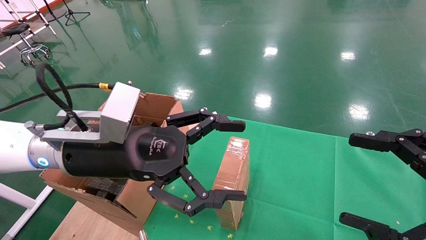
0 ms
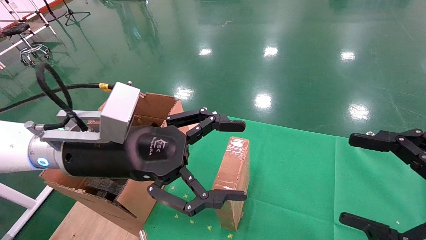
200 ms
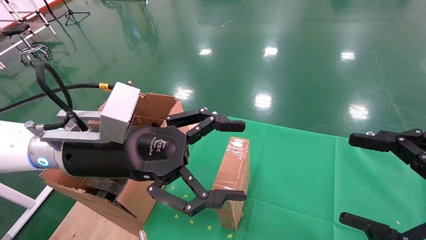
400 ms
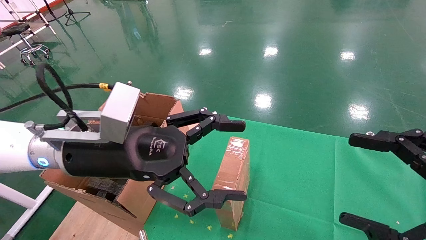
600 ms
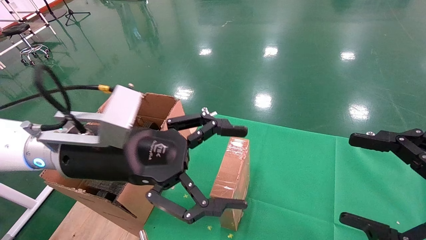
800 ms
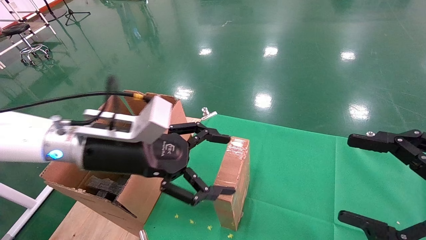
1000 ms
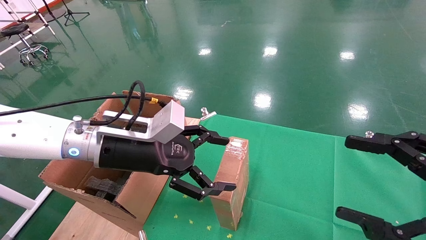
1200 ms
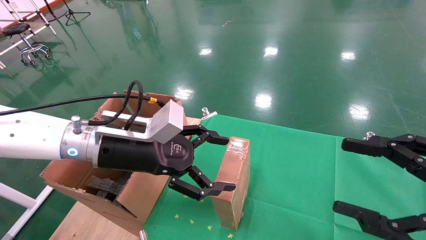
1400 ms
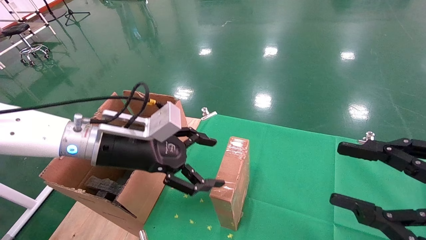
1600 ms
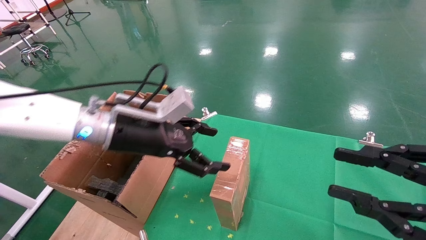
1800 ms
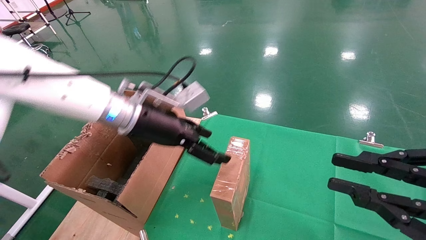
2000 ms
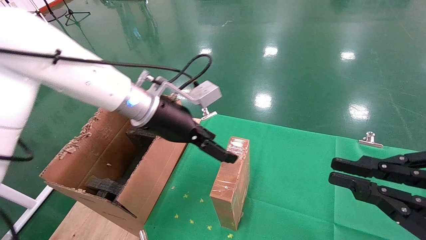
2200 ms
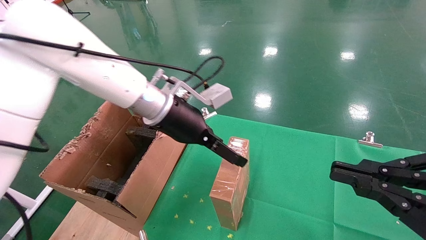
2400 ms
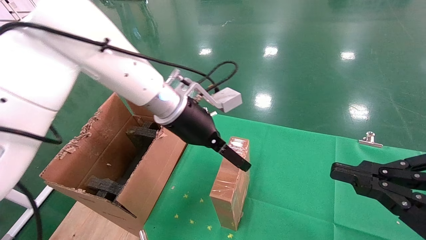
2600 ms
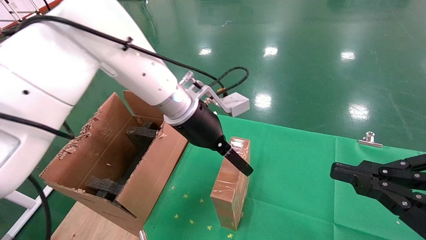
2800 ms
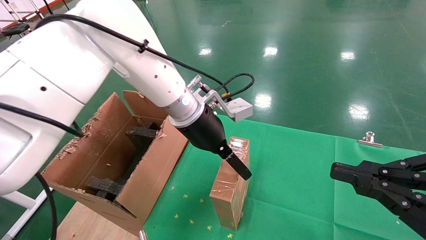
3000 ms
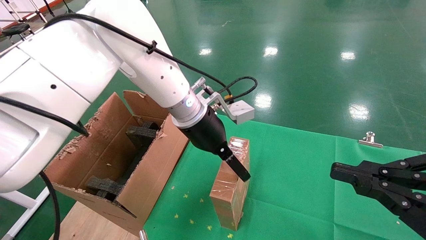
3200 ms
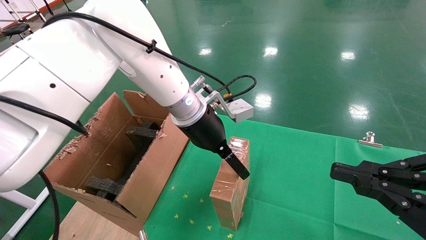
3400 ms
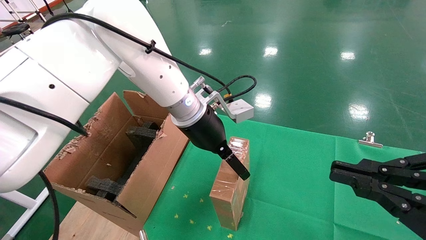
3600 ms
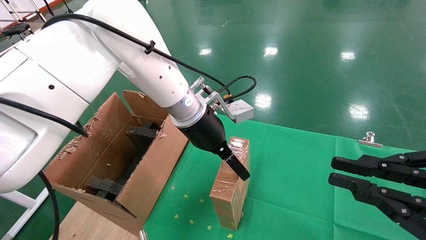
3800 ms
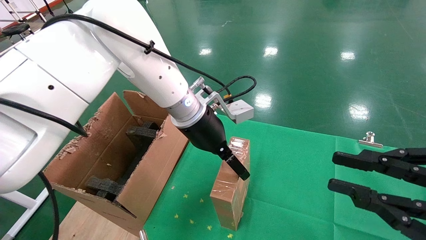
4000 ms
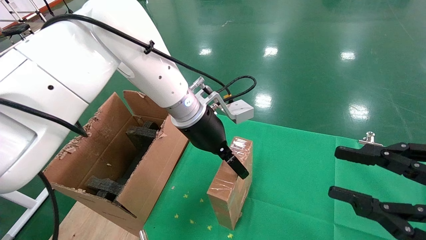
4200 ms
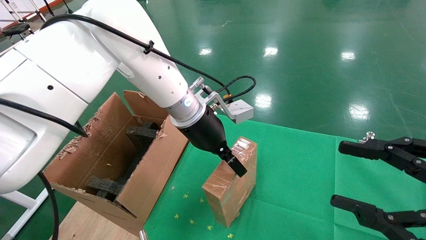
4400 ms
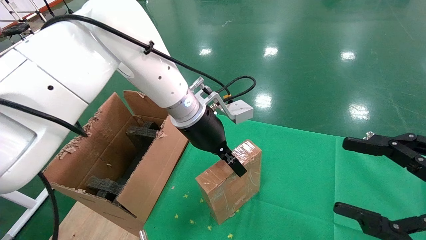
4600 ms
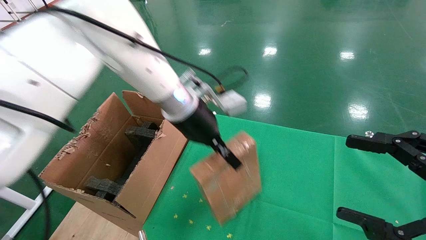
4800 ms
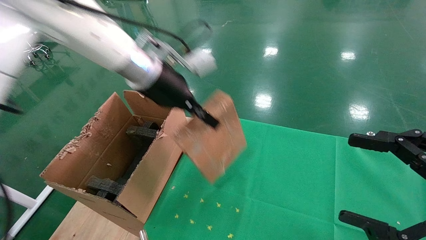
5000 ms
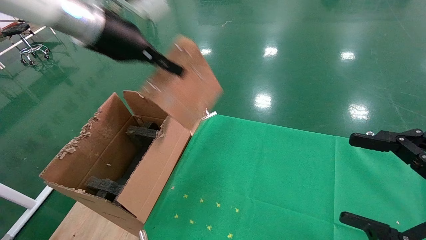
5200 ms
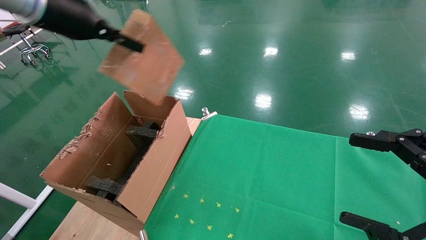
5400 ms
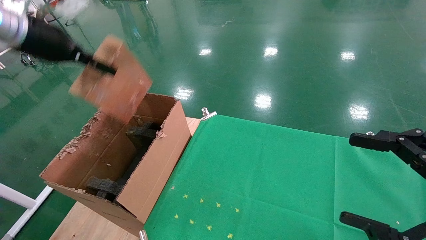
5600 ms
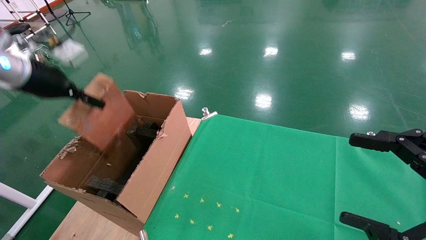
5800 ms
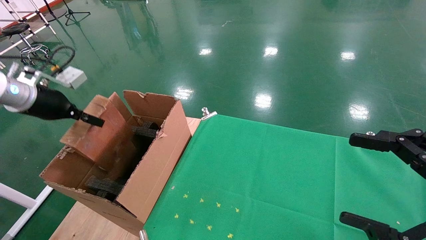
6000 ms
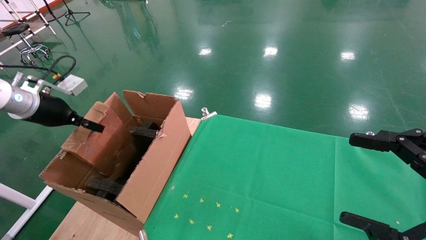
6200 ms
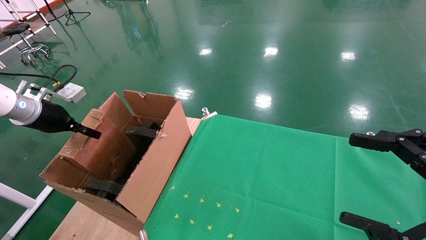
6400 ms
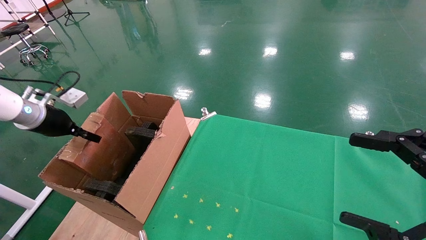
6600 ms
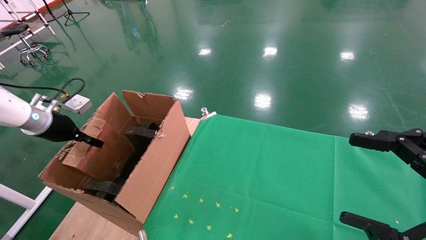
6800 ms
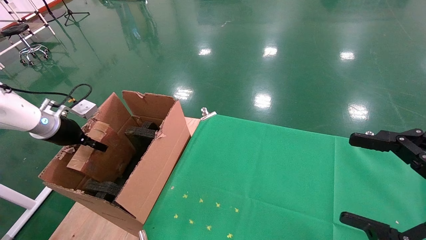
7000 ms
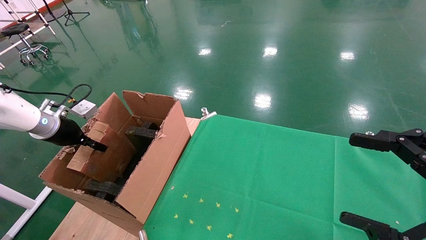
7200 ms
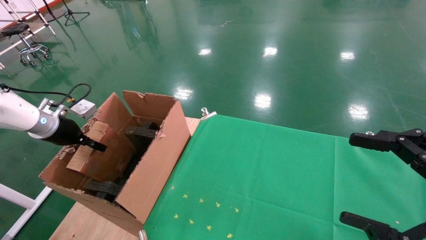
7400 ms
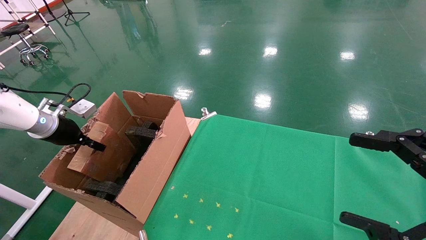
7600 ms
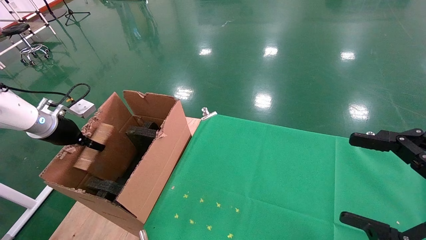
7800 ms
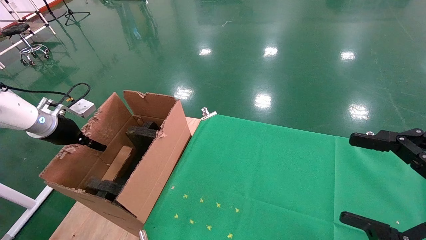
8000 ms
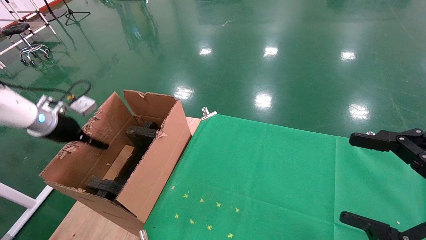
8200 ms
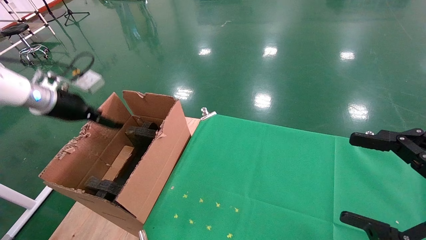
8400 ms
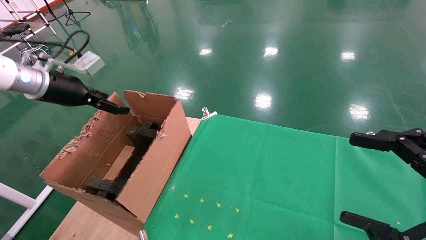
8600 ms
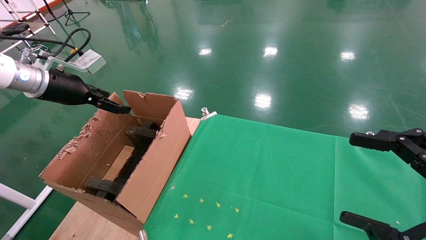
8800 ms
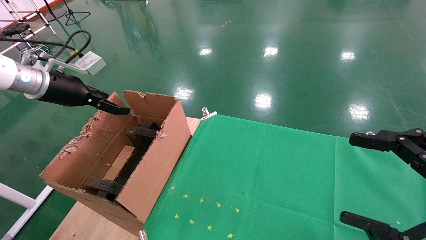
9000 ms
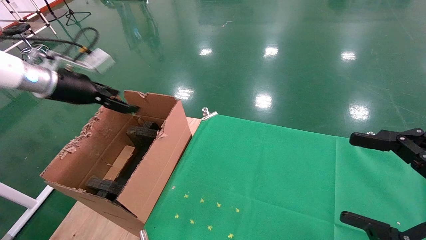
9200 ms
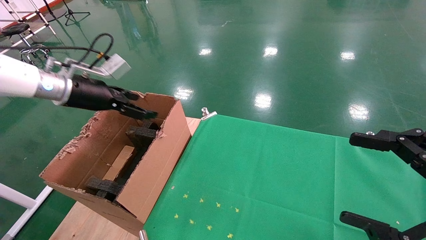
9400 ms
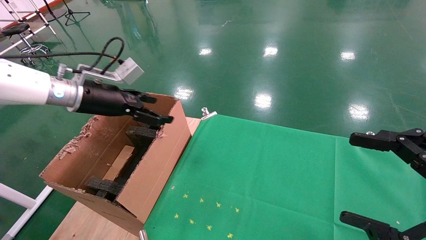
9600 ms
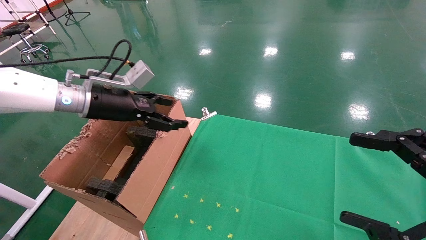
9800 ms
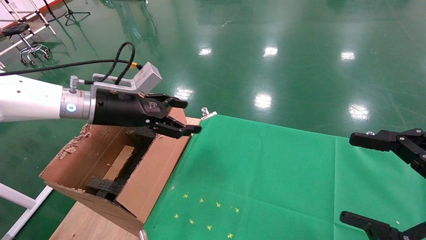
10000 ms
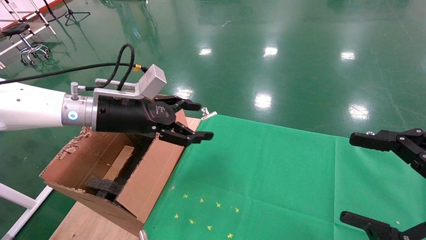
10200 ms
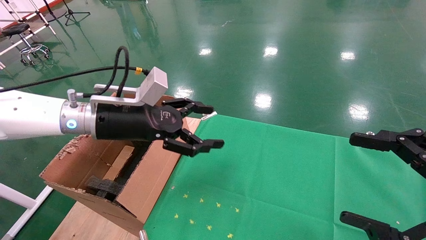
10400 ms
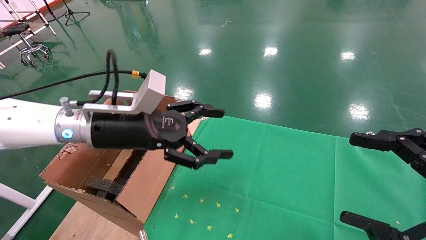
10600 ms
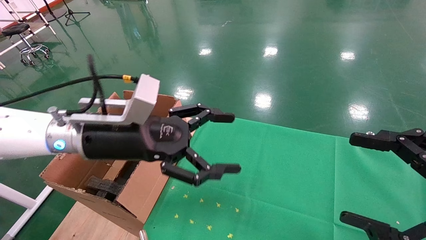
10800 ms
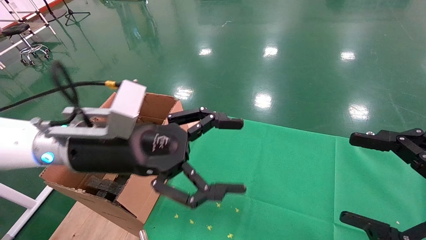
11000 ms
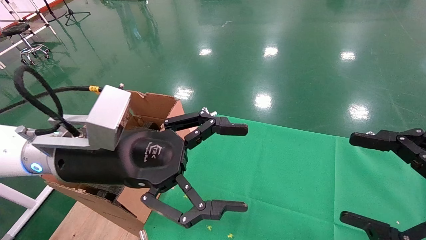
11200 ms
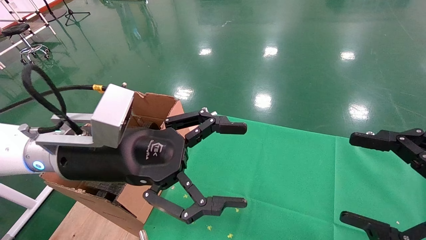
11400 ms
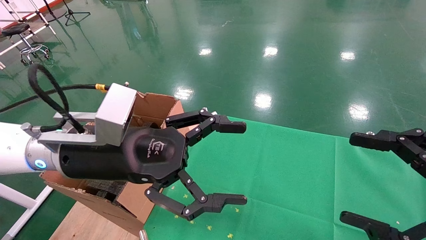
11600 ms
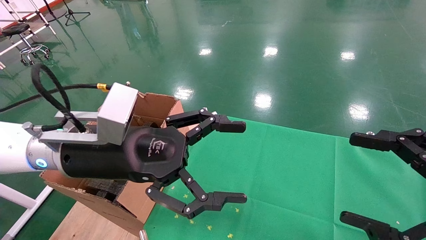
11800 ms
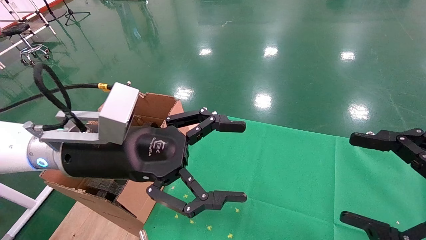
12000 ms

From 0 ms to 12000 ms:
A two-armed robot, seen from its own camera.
Task of the whole recording: using a robotic arm to pick up a cardboard box and palace it the carton.
Step, from 800 ms to 4600 ms: Pick up the mouse and the power cord paper box.
Step, from 4800 ms to 8400 ms: Place the mouse and the power cord paper box into the container.
From 0 ms to 1600 ms: The left gripper shifts approximately 5 cm forward.
From 1600 ms to 3000 ms: The left gripper is displaced to the right and forward by approximately 15 cm; the right gripper closes its fingers.
From 3000 ms to 4400 ms: The right gripper opens, while the left gripper closes up.
From 4400 ms to 6000 ms: The left gripper is displaced to the left by about 35 cm, and closes; the right gripper opens.
From 6000 ms to 7600 ms: The left gripper is displaced downward by some 10 cm.
From 7600 ms to 9000 ms: The left gripper goes roughly 15 cm upward and to the right, and opens.
From 9000 ms to 10400 ms: The left gripper heads to the right, covering about 20 cm.
From 10400 ms to 12000 ms: The left gripper travels backward by roughly 10 cm.

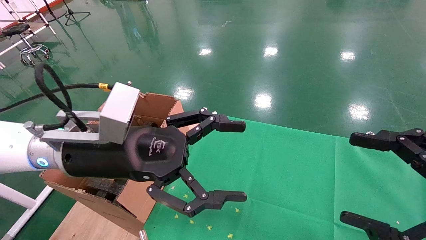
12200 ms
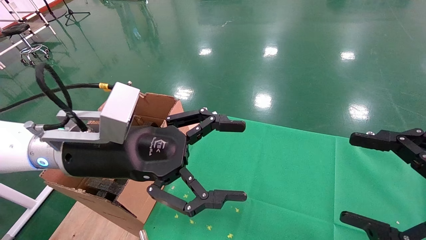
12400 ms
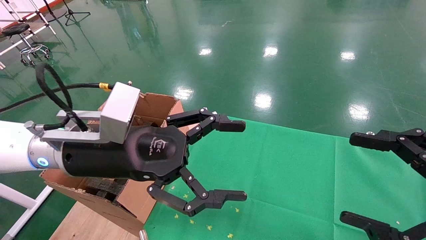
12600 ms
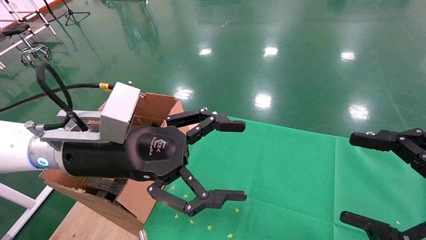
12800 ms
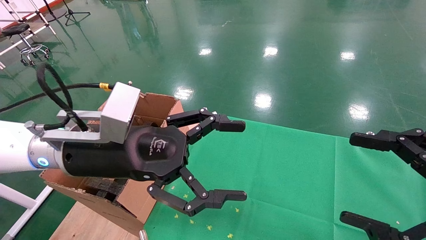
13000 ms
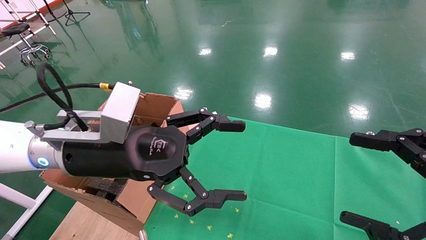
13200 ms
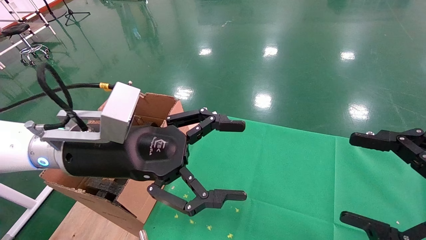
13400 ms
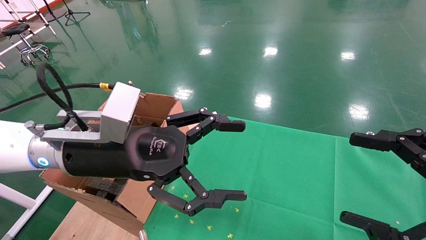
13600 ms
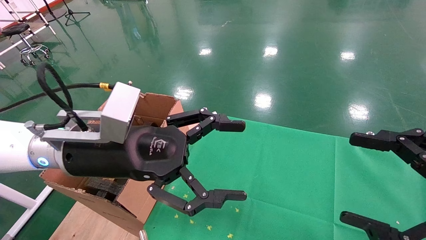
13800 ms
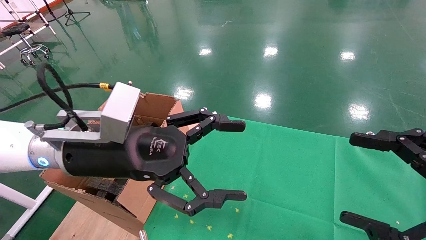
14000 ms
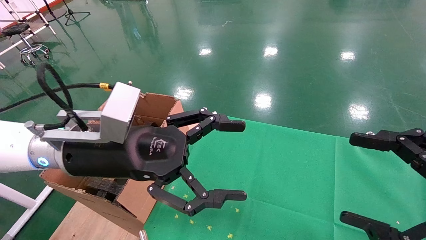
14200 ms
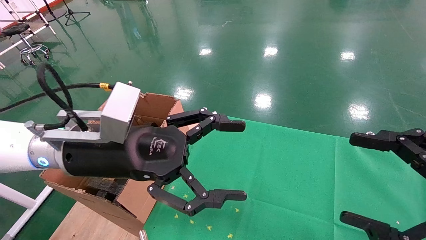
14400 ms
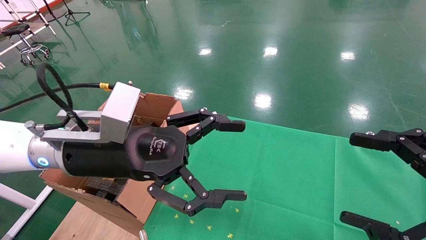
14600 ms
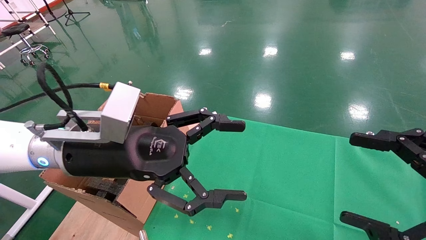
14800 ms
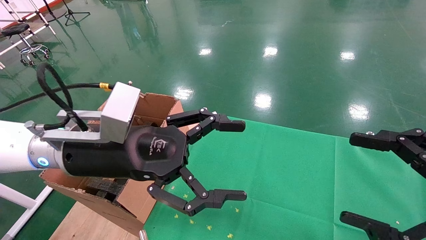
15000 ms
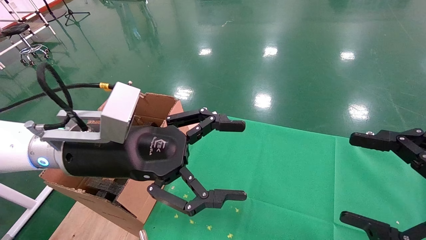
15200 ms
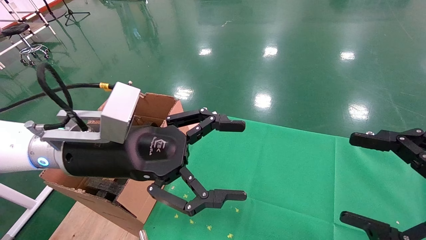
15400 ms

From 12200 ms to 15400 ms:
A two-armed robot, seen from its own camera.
Task of the whole recording: using a robotic arm to pick up a cardboard box and palace it the carton.
From 12200 ms to 15400 ms: Neither gripper changes place.

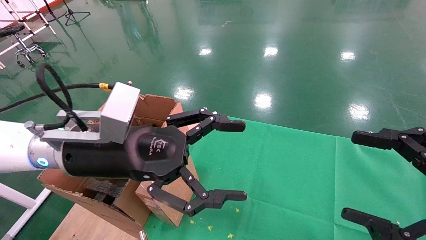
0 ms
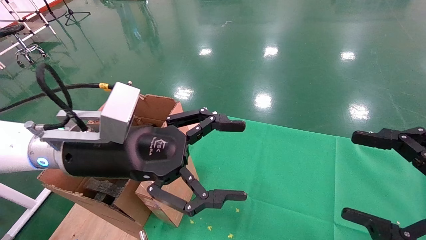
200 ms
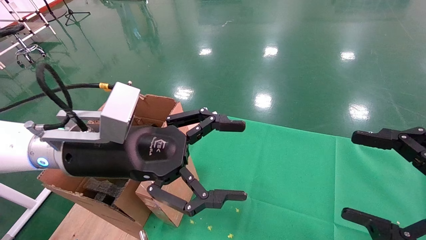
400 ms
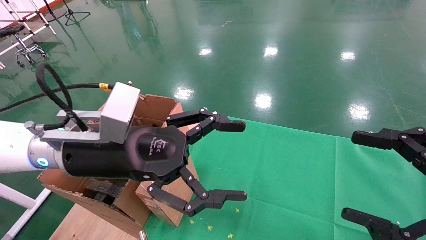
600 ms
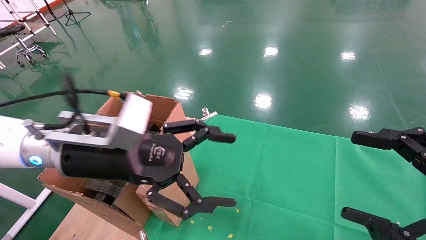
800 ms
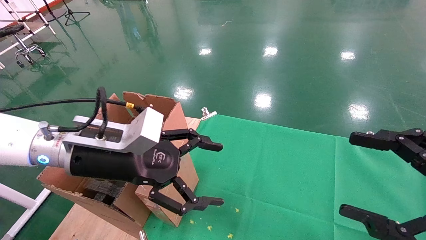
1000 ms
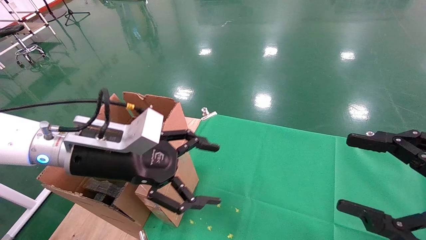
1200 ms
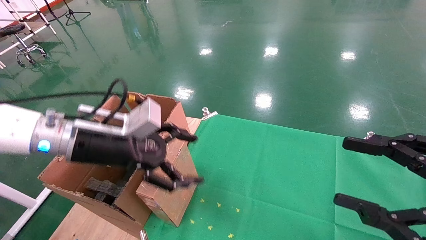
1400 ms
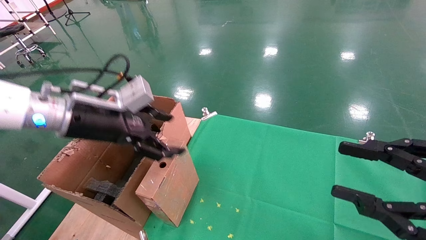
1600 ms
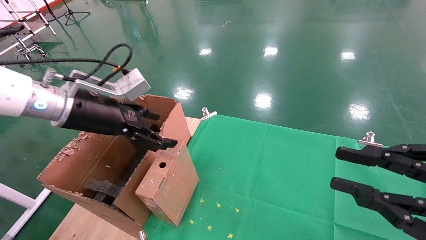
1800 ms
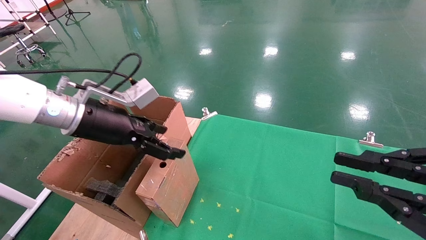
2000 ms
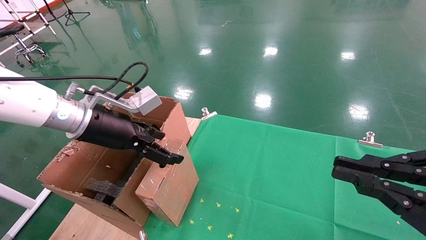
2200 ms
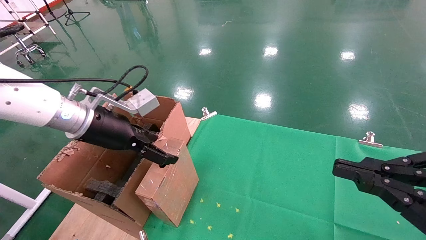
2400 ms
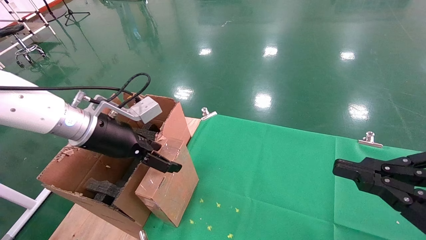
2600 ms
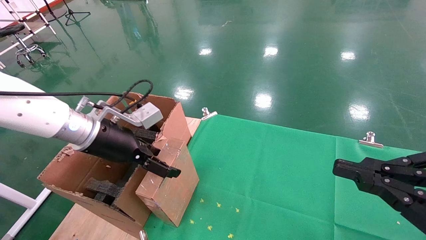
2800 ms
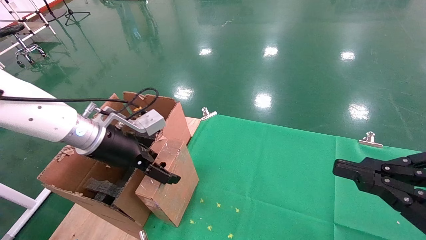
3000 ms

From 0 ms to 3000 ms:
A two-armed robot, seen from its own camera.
Task of the whole recording: using a robotic arm to pick up a cardboard box and palace it the carton.
From 0 ms to 1600 ms: The right gripper closes, while the left gripper is displaced to the left and forward by some 10 cm.
From 1600 ms to 3000 ms: The right gripper closes its fingers, while the left gripper changes place by approximately 5 cm.
